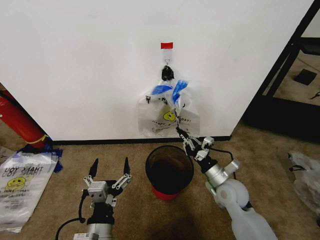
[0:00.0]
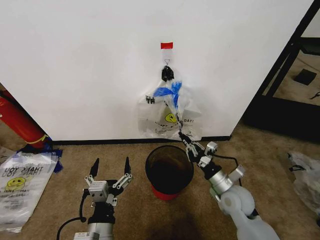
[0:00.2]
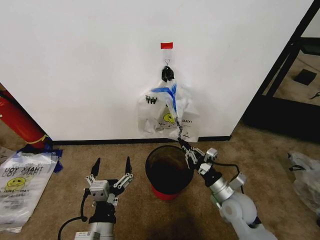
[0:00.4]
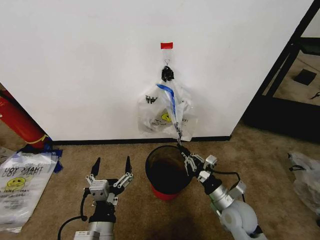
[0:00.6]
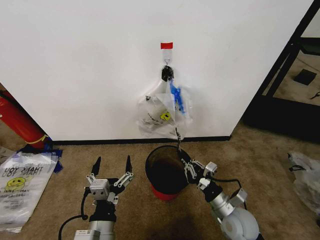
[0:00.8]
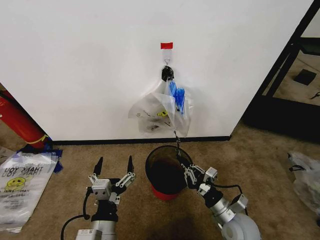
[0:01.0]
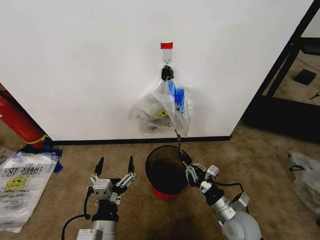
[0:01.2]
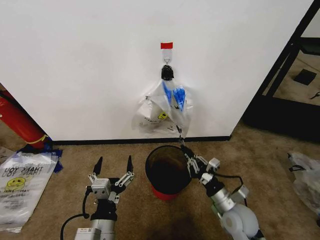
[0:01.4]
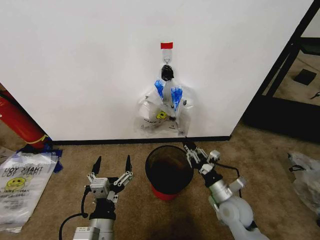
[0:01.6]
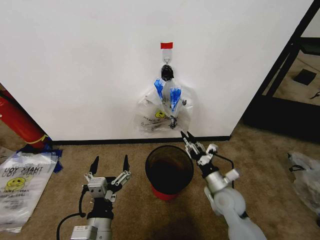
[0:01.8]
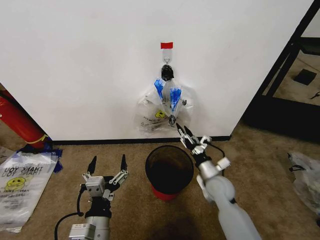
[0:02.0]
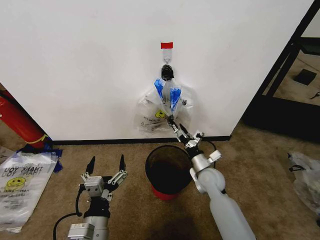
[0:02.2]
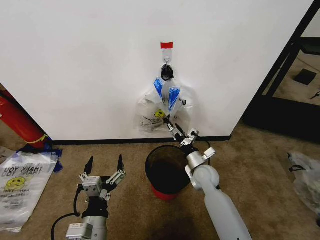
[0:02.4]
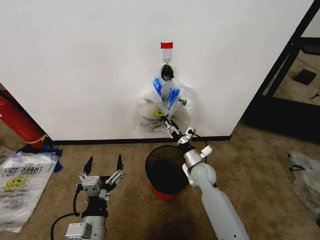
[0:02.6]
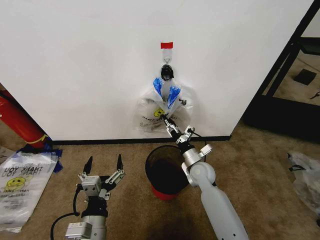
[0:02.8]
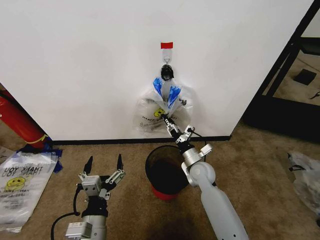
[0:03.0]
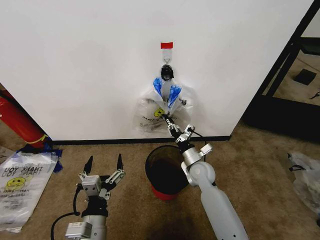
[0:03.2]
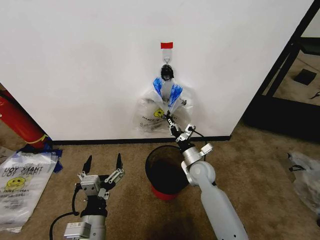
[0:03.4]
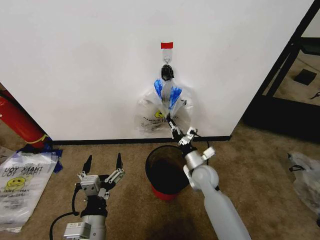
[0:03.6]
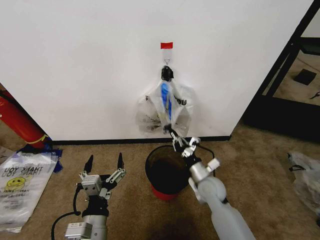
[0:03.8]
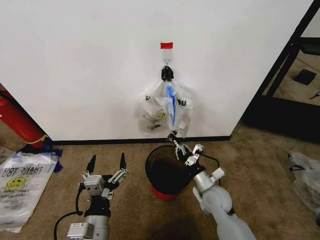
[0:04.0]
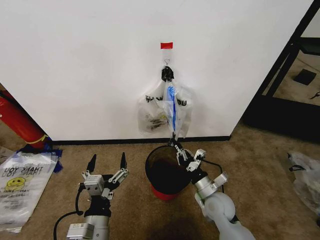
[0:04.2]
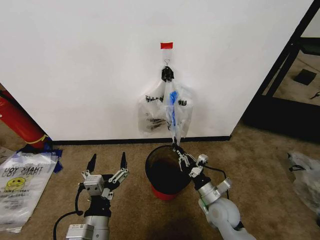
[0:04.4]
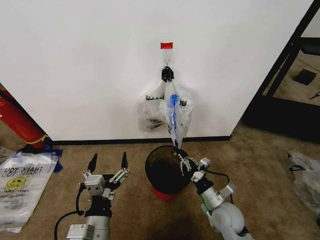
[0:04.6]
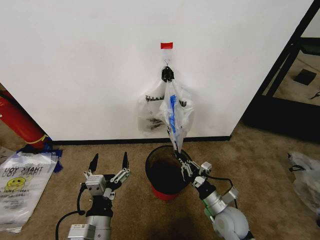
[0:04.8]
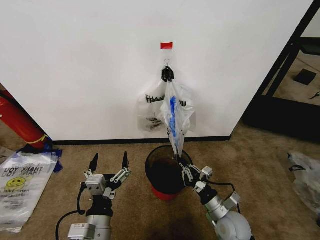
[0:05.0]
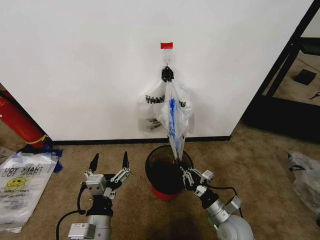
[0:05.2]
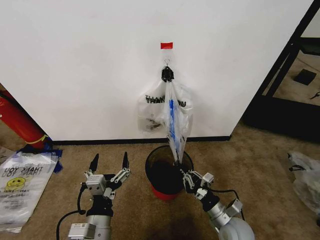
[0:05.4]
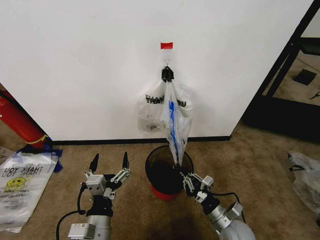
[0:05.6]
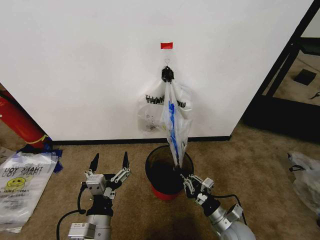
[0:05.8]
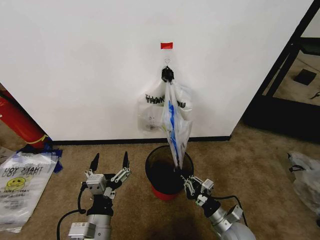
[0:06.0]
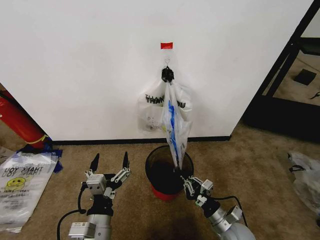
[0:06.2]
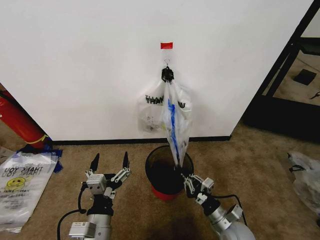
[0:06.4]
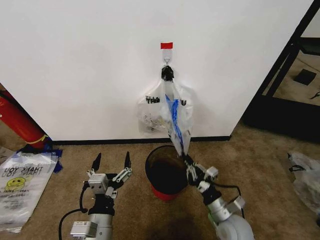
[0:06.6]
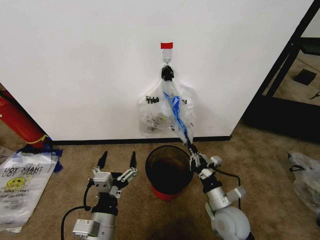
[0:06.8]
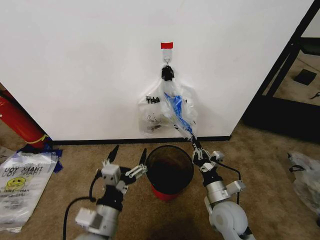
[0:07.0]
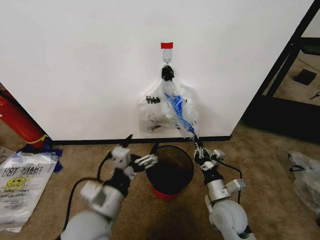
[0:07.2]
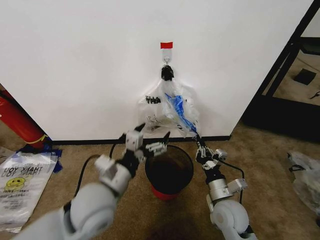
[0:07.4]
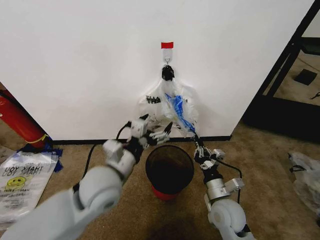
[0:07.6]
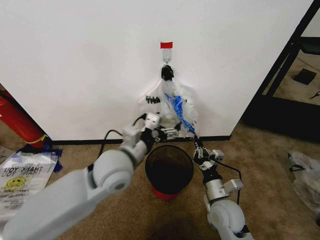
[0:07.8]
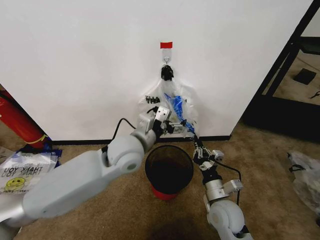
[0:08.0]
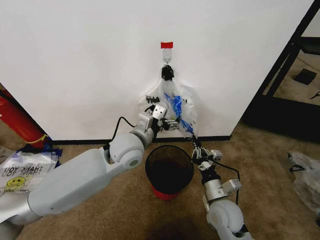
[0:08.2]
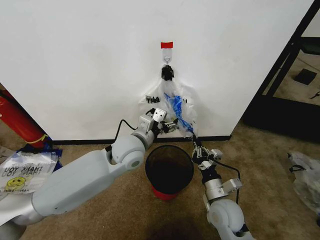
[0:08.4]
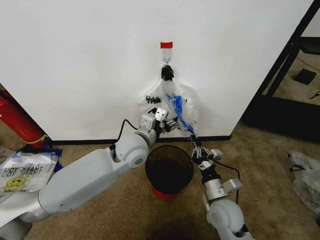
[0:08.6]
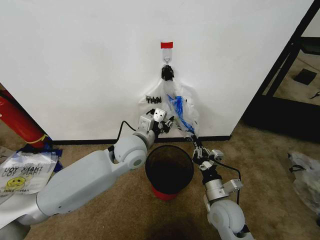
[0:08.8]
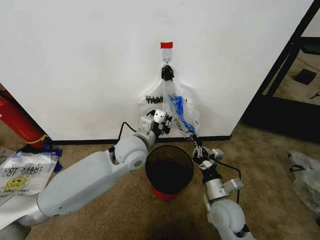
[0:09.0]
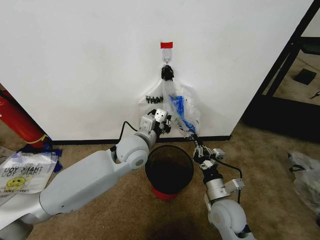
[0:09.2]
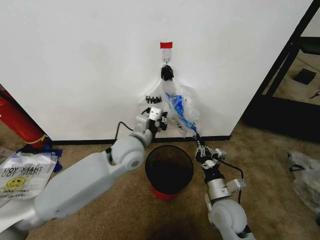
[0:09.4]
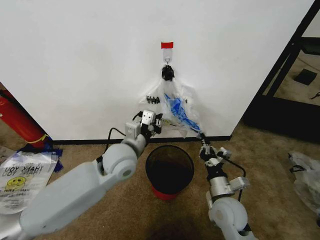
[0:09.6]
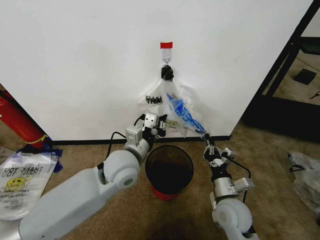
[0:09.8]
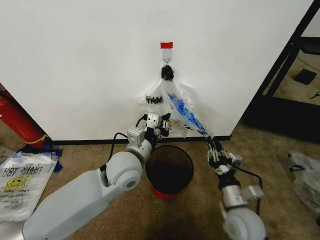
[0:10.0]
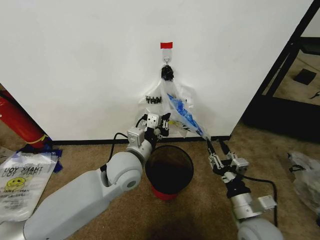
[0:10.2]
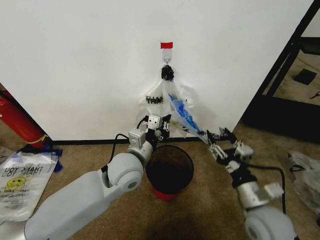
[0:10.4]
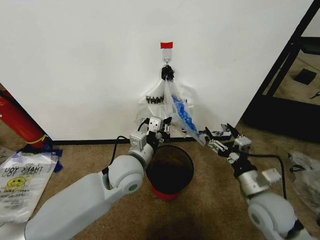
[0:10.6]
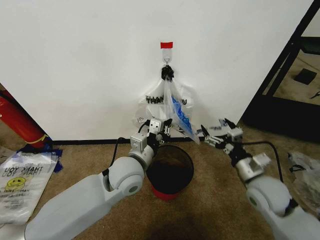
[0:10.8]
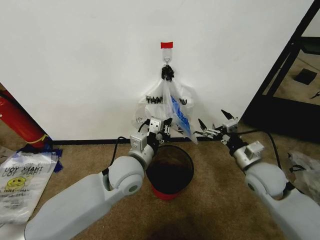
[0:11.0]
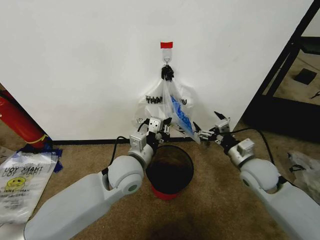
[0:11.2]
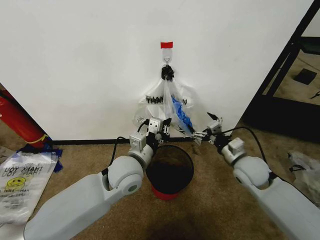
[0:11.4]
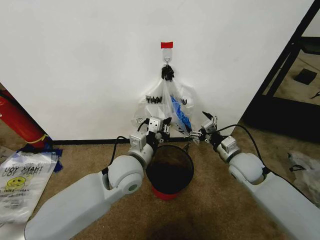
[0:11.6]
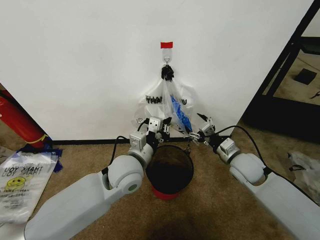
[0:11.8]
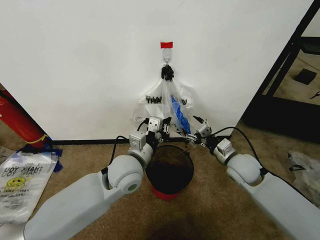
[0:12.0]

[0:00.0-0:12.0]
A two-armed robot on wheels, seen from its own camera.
Task of the whole recording: Pick up the garbage bag from the wall and place it over the trash bin.
0:01.6 to 0:03.0: The right gripper heads forward and to the left, covering approximately 15 cm, and opens and closes again.
0:03.0 to 0:04.4: The right gripper travels backward by approximately 15 cm, and closes up.
0:04.4 to 0:06.0: The right gripper goes about 5 cm backward.
0:06.0 to 0:07.6: The right gripper shifts some 10 cm upward, while the left gripper goes approximately 20 cm forward and upward.
0:07.6 to 0:09.0: The left gripper shifts some 10 cm forward and to the right, and closes its fingers.
0:09.0 to 0:10.4: The right gripper is displaced upward and to the right by about 10 cm, and opens up. The left gripper shifts roughly 5 cm backward.
0:10.4 to 0:12.0: The right gripper travels forward by roughly 15 cm.

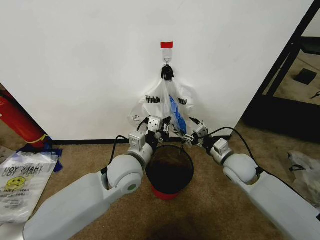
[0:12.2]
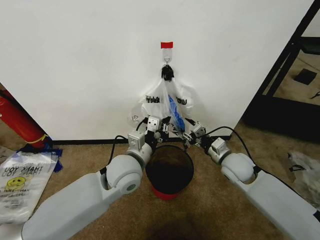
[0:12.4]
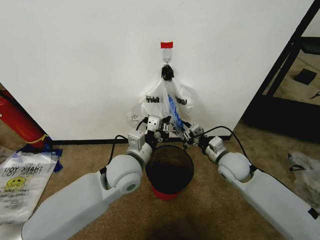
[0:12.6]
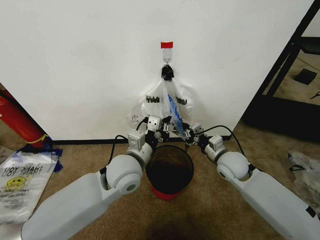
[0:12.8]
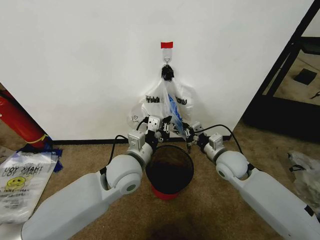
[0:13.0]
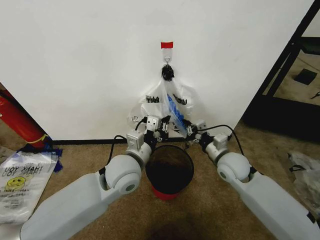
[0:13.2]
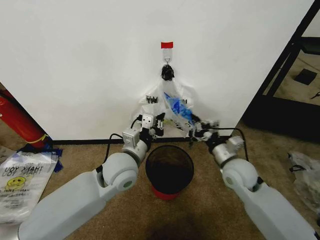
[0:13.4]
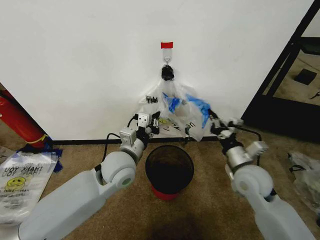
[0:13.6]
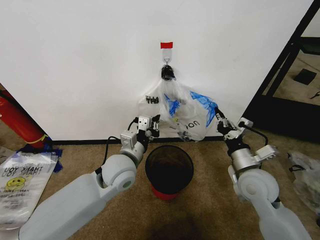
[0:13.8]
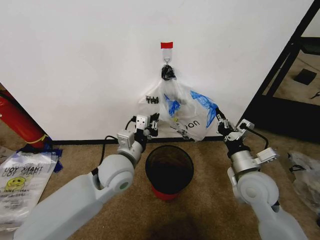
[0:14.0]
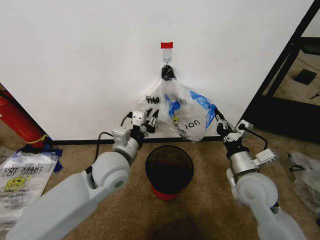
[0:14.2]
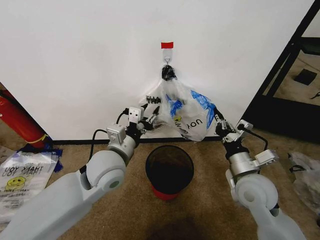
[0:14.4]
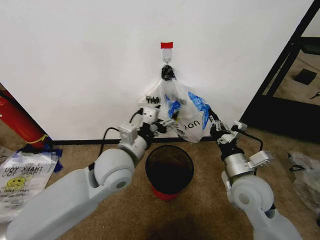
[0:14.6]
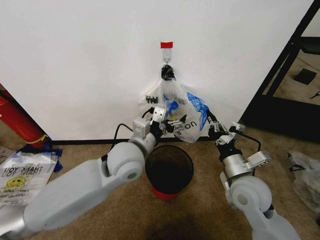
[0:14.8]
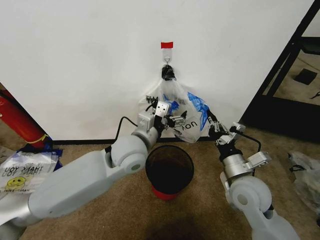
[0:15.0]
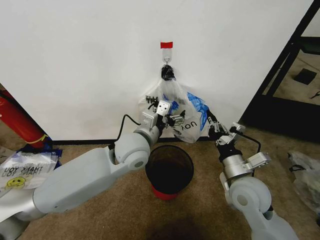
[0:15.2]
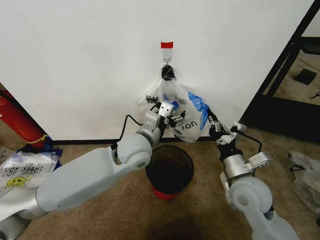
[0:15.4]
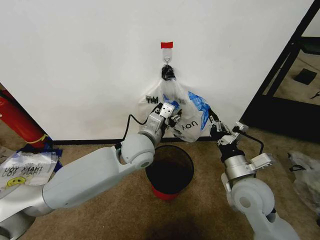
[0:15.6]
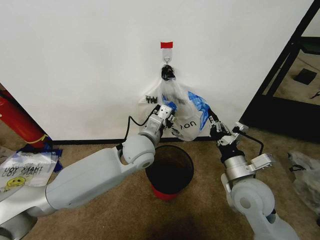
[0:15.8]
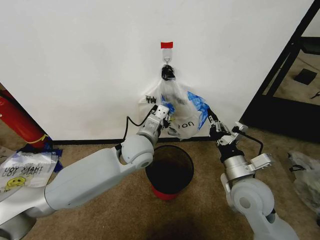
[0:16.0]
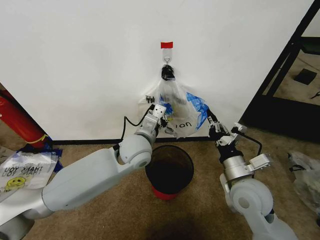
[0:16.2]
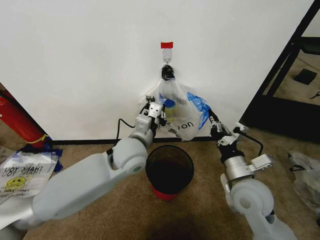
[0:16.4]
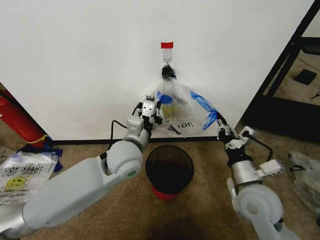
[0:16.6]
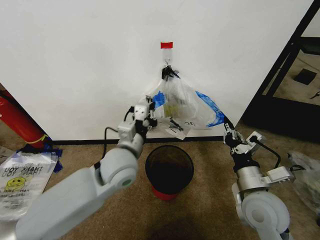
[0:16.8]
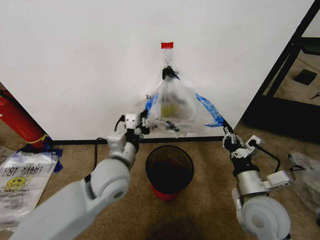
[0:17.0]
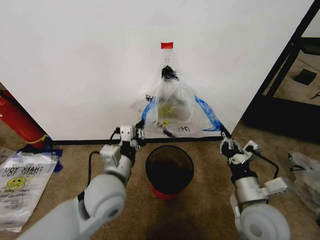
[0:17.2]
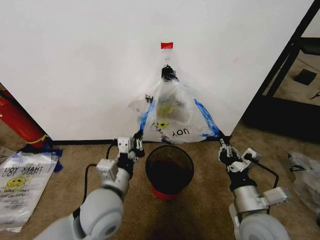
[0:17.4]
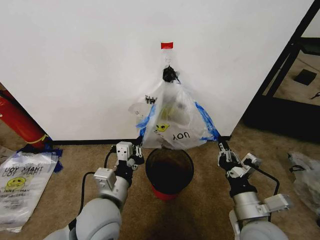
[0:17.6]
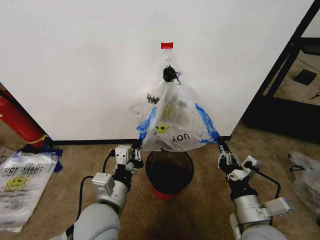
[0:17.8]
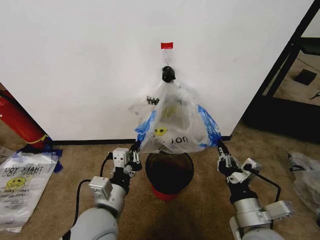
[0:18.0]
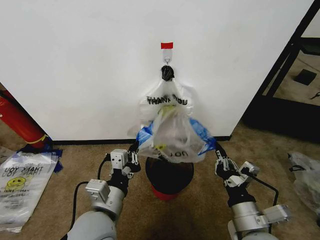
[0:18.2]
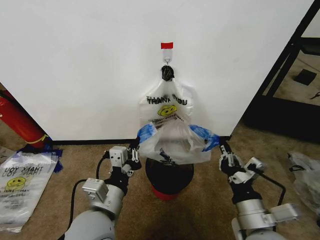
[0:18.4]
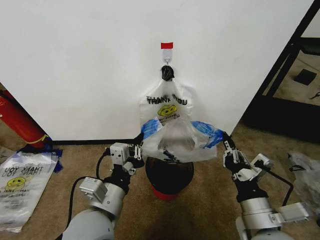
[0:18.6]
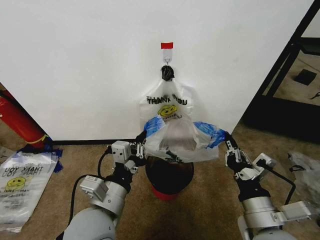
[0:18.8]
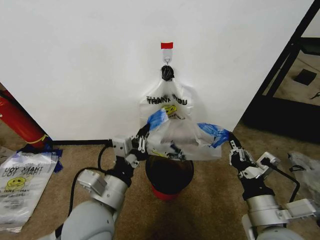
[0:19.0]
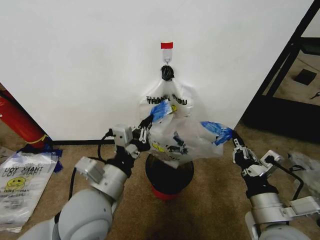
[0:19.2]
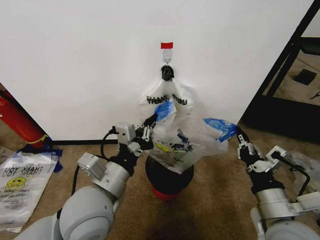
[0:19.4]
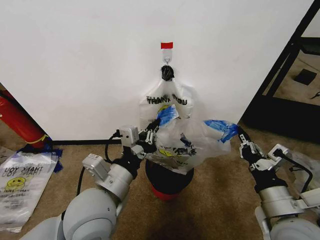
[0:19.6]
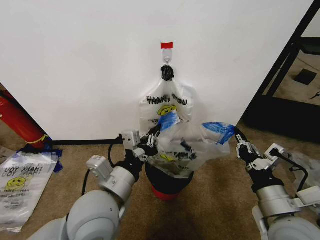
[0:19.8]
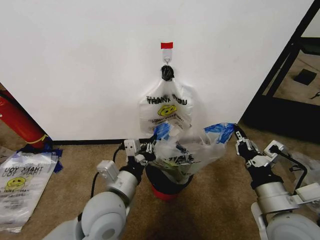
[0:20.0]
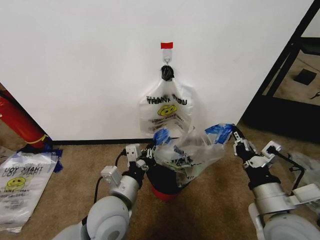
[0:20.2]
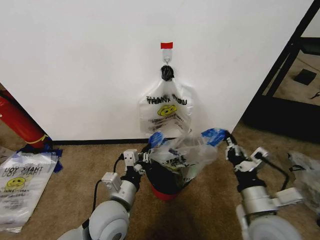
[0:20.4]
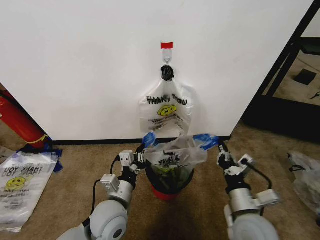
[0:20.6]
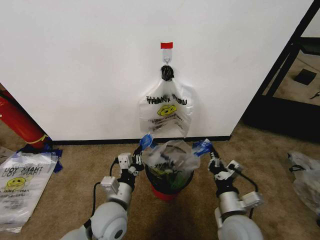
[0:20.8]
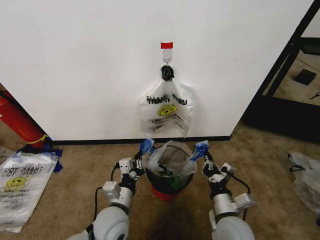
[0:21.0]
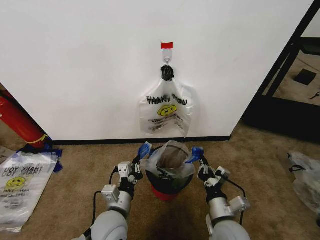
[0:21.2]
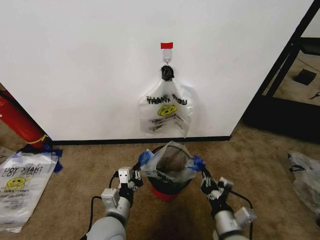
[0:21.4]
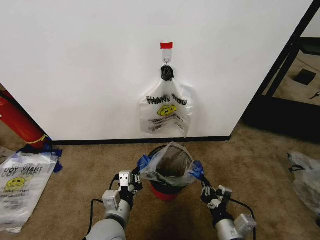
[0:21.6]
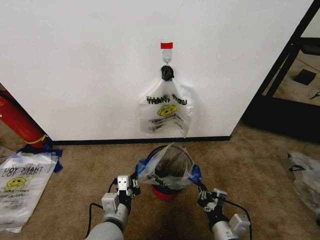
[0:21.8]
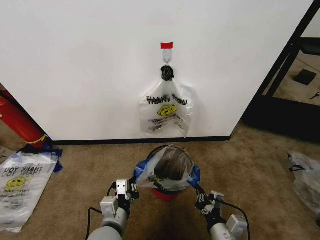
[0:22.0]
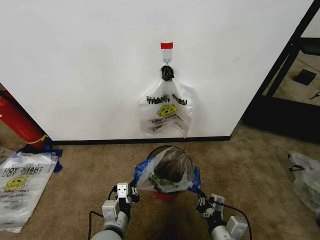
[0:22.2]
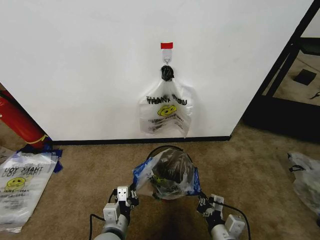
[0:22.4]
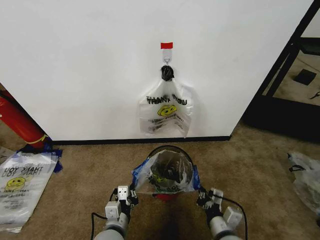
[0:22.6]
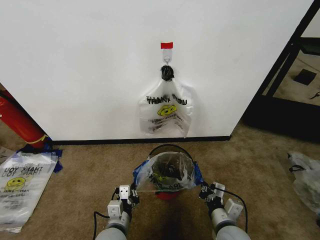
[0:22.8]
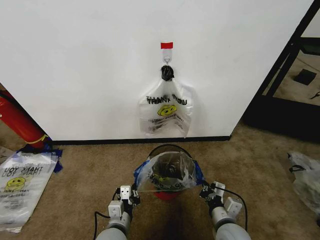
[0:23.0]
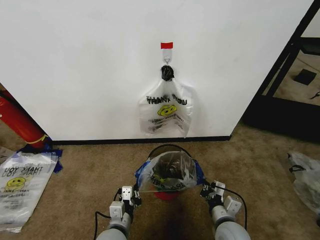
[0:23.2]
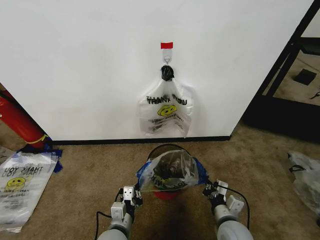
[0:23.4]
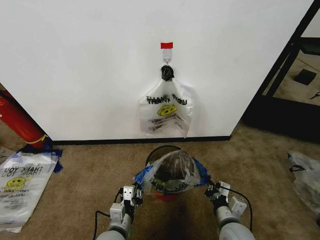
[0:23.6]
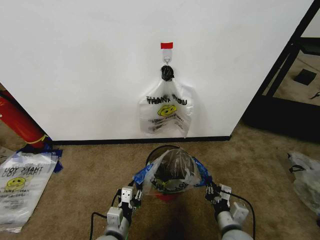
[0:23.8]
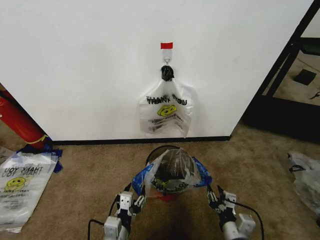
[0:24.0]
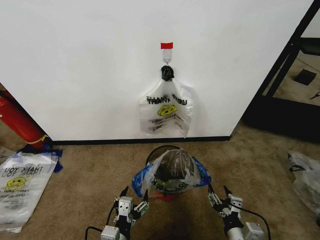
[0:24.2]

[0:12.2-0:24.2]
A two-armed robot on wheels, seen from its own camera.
Task of the whole recording: Pick up the garbage bag from the wall and place it over the trash bin.
0:12.2 to 0:13.8: The right gripper shifts some 10 cm backward, and closes.
0:13.8 to 0:15.2: The left gripper heads upward, covering some 5 cm, and opens its fingers.
0:15.2 to 0:16.6: The left gripper closes.
0:16.6 to 0:18.2: The left gripper moves backward, approximately 15 cm. The right gripper shifts some 10 cm backward.
0:18.2 to 0:19.8: The grippers both shift upward by roughly 5 cm.
0:19.8 to 0:21.2: The left gripper is displaced downward by some 15 cm; the right gripper travels downward and to the left by about 15 cm.
0:22.6 to 0:24.2: The right gripper shifts by about 5 cm, and opens up. The left gripper moves backward, about 5 cm, and opens up.
